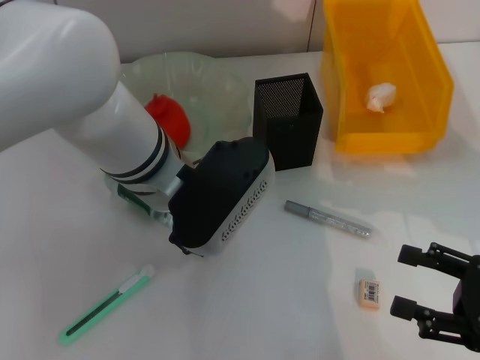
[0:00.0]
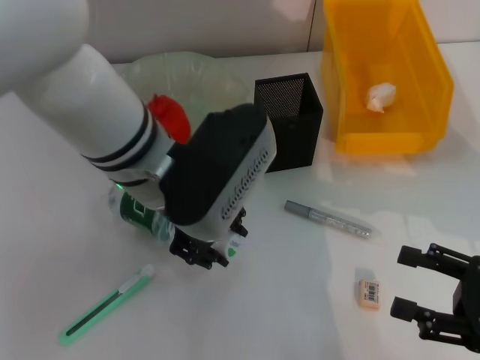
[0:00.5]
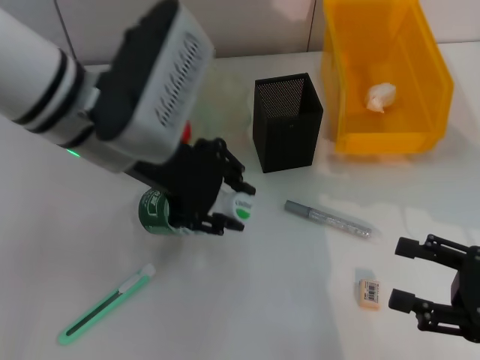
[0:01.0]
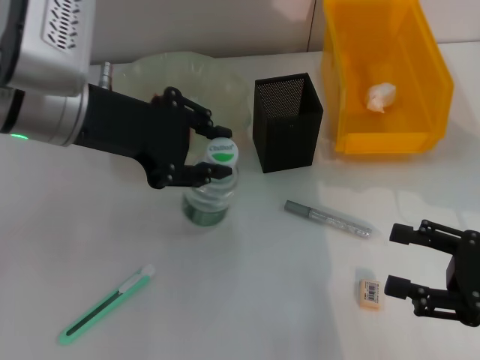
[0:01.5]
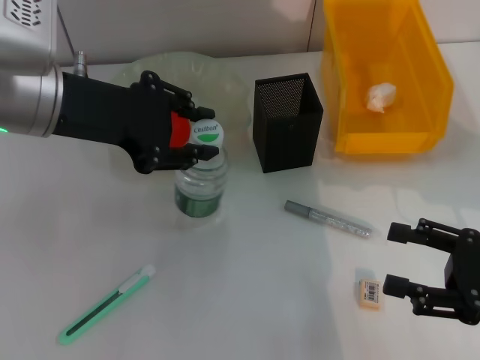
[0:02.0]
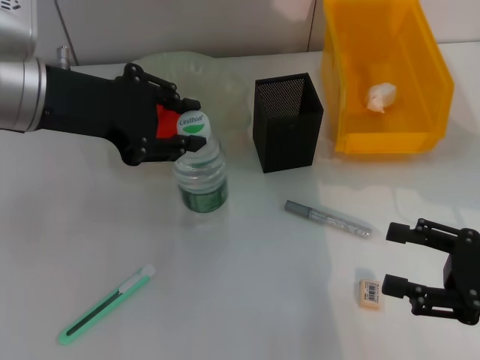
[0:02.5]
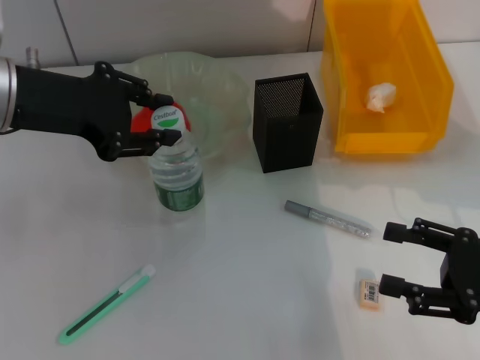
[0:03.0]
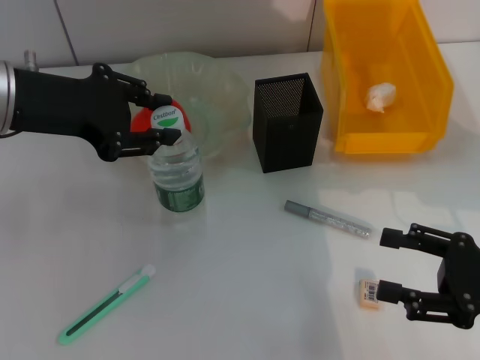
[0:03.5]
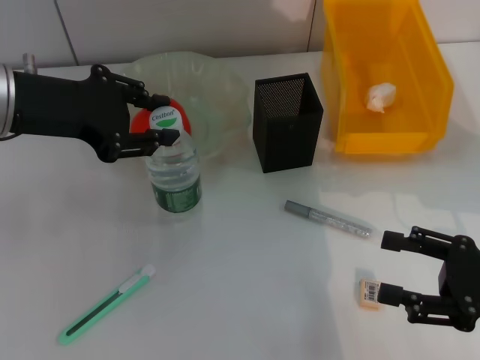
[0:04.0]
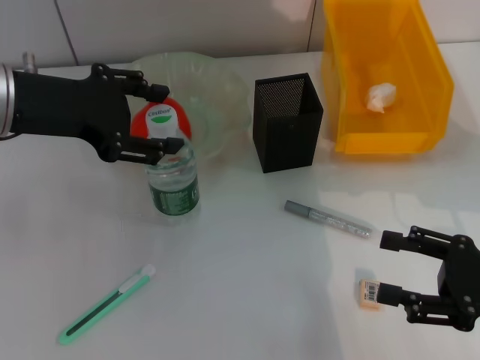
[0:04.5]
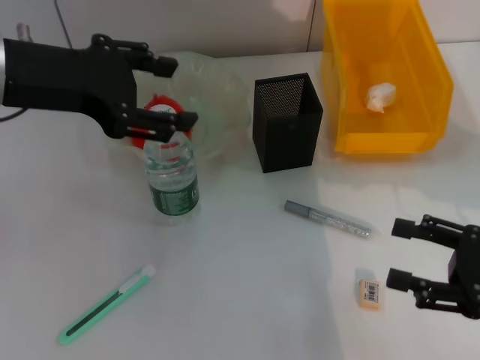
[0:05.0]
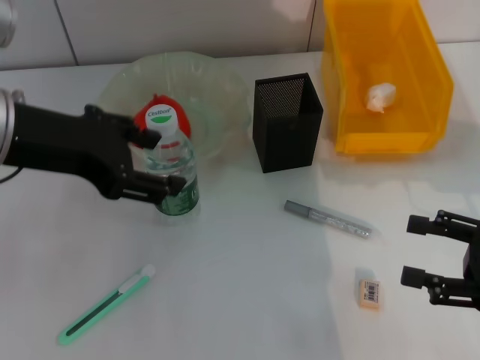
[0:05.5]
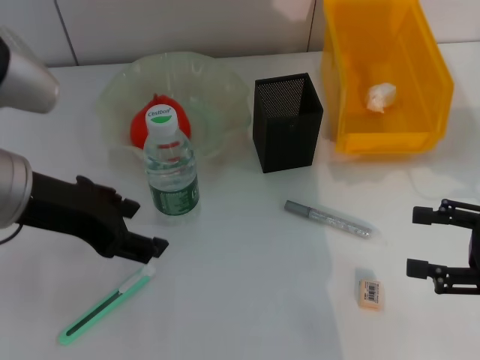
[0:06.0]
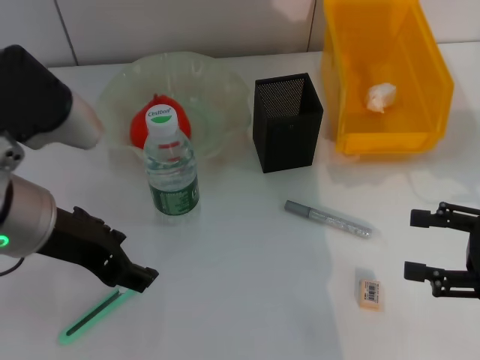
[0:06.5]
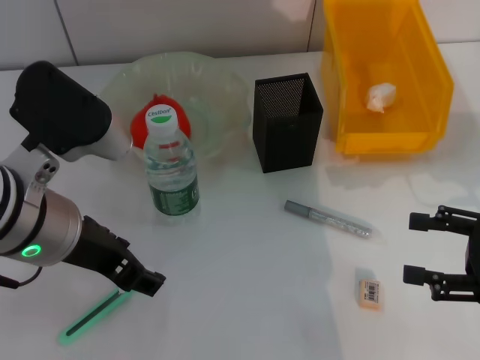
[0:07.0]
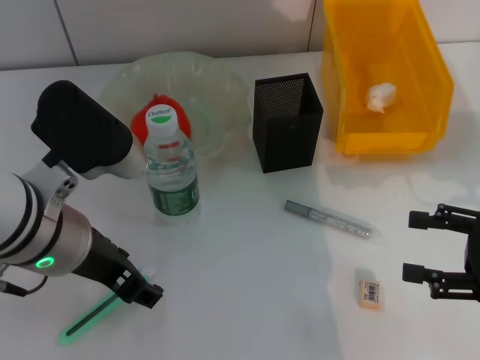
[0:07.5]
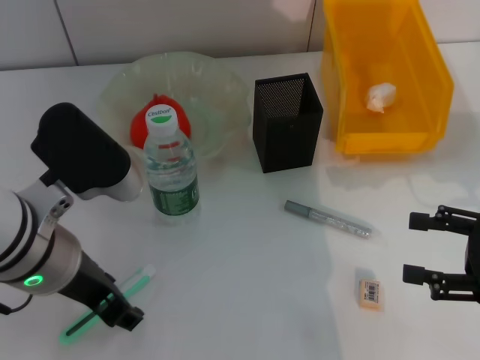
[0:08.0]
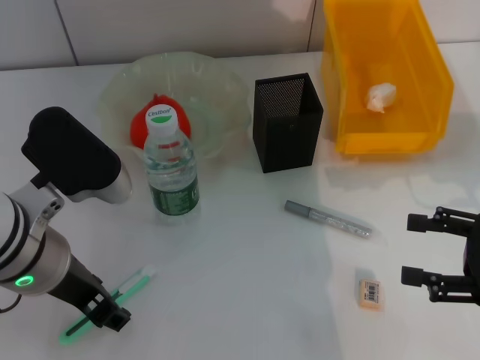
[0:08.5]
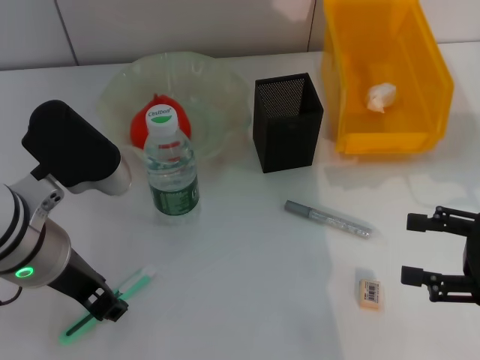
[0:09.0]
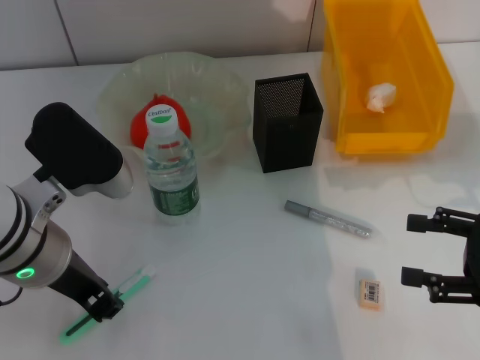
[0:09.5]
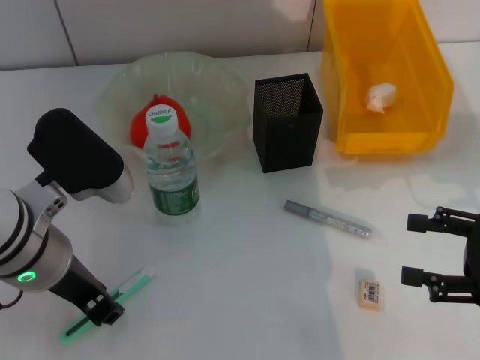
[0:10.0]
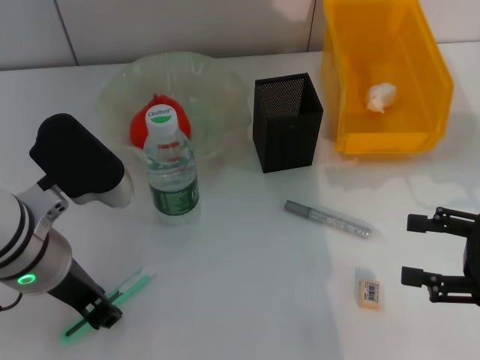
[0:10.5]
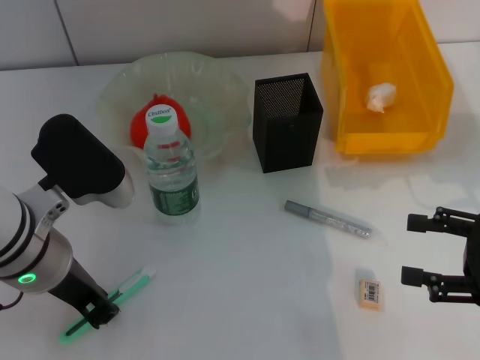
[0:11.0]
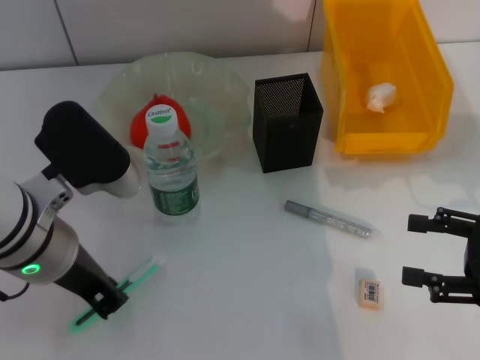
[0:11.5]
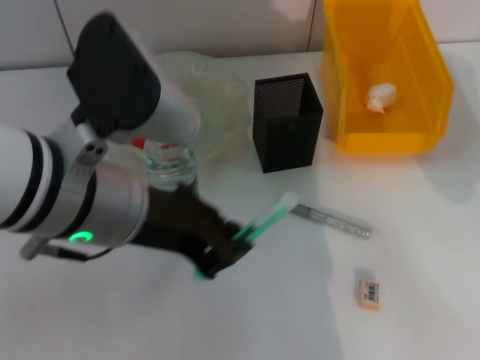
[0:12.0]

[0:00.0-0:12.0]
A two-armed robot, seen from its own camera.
Step, 0:00.0 to 0:04.0: Place the water bottle on the table with the left hand.
Step, 0:05.0 to 0:11.0: Grab the blue utility knife with the left hand.
0:00.0 to 0:02.0: The left gripper is displaced to the left and upward by some 15 cm.
0:02.0 to 0:04.0: The grippers stay close to where they were, moving slightly.
0:04.0 to 0:06.0: The left gripper moves backward, some 5 cm, and opens.
0:06.0 to 0:08.0: The left gripper ends up some 5 cm from where it was.
0:08.0 to 0:10.0: The left gripper closes.
0:10.0 to 0:12.0: The right gripper changes place by approximately 5 cm, while the left gripper travels upward and to the right by approximately 10 cm.

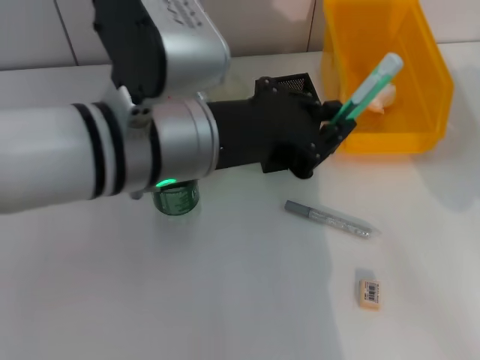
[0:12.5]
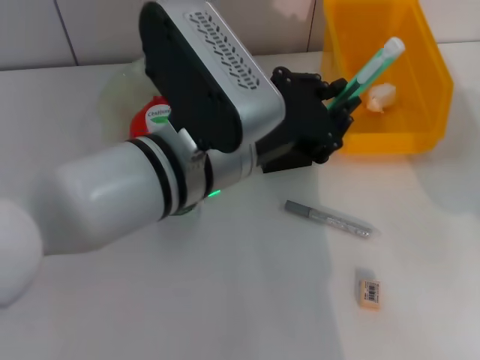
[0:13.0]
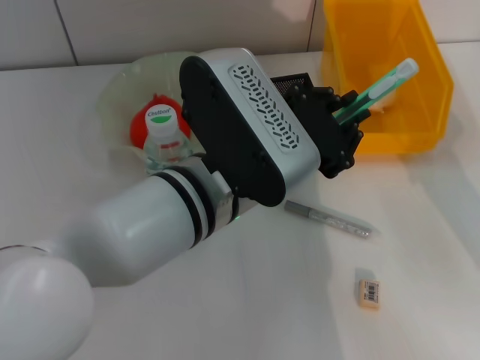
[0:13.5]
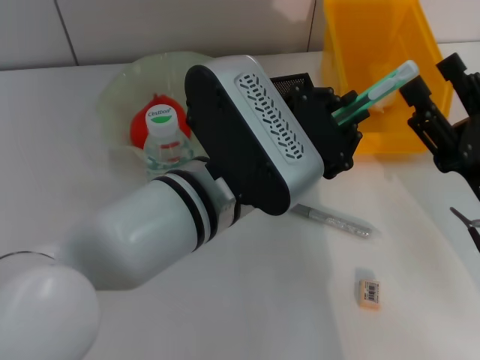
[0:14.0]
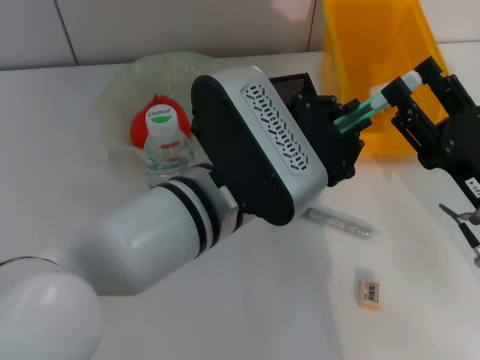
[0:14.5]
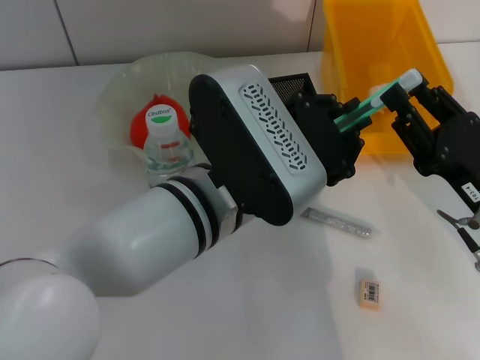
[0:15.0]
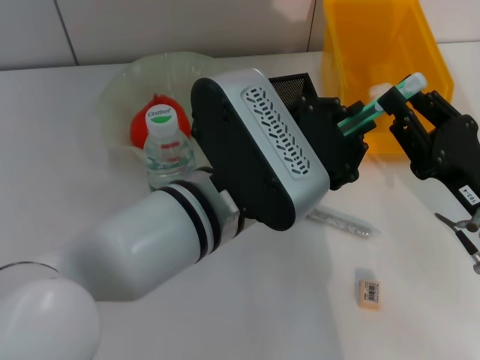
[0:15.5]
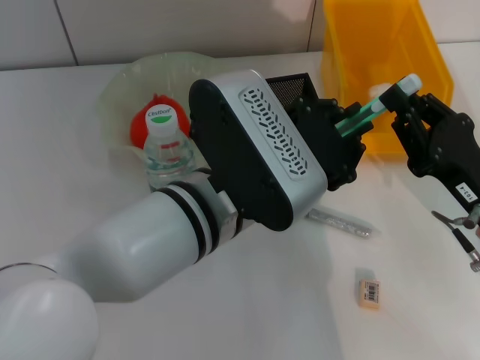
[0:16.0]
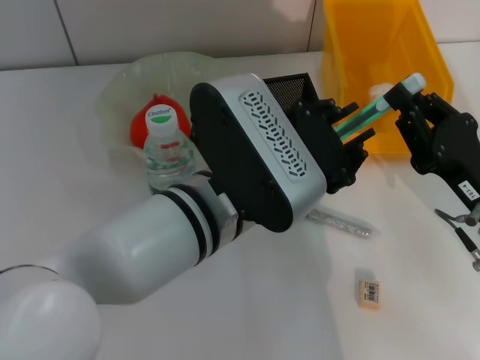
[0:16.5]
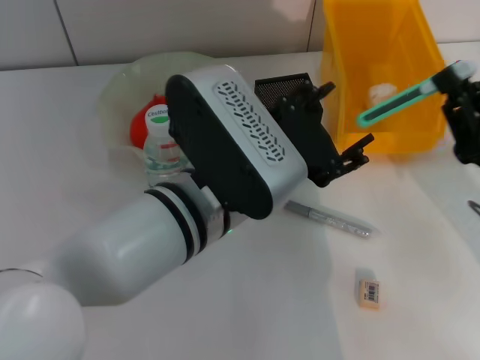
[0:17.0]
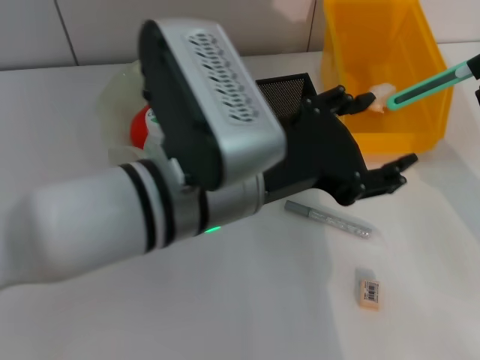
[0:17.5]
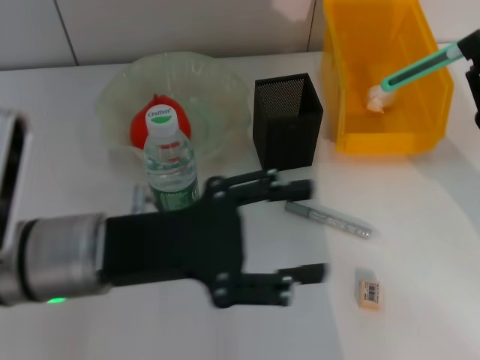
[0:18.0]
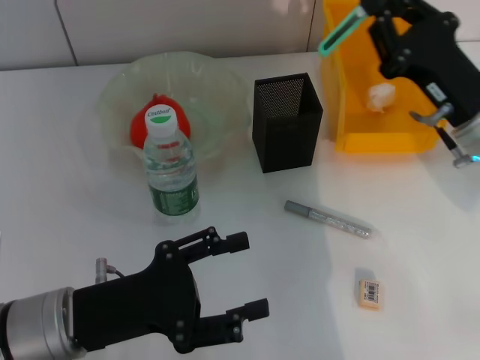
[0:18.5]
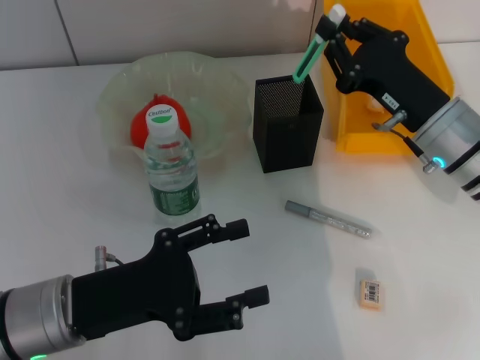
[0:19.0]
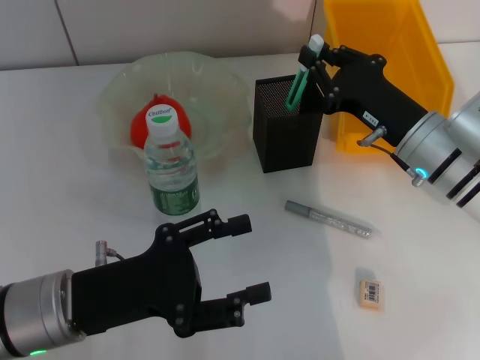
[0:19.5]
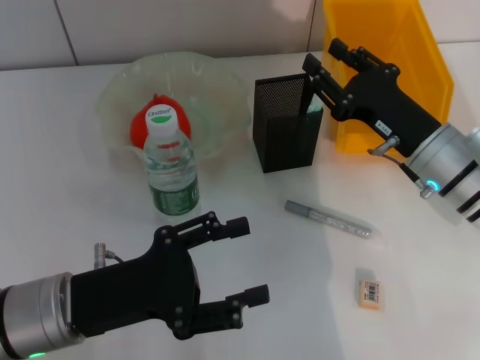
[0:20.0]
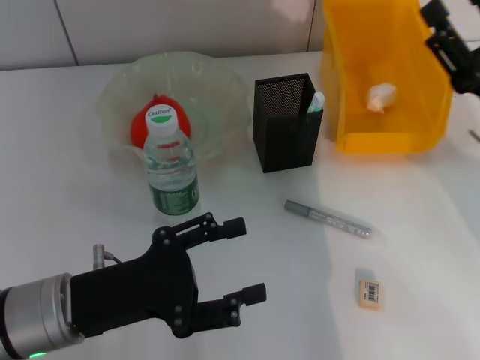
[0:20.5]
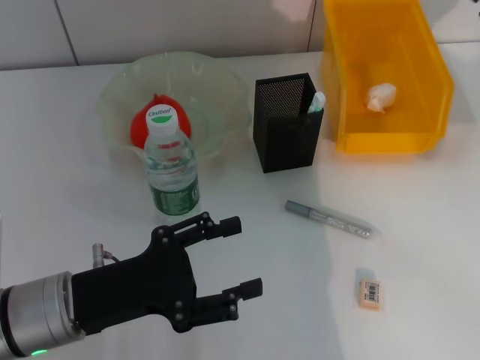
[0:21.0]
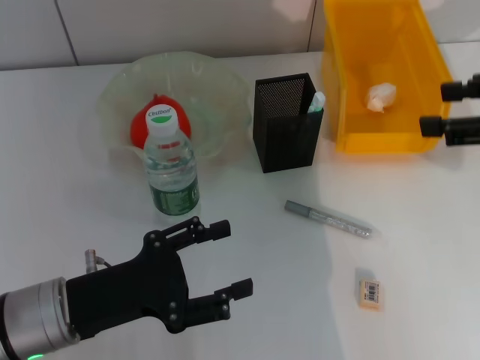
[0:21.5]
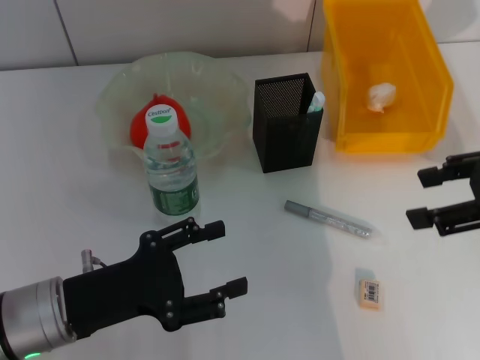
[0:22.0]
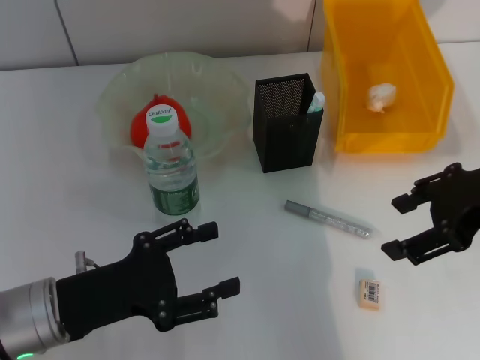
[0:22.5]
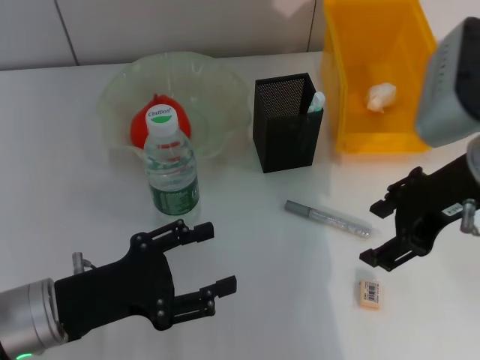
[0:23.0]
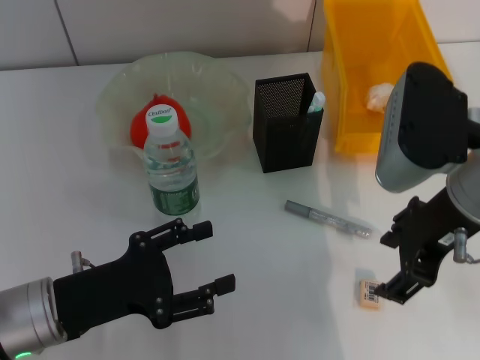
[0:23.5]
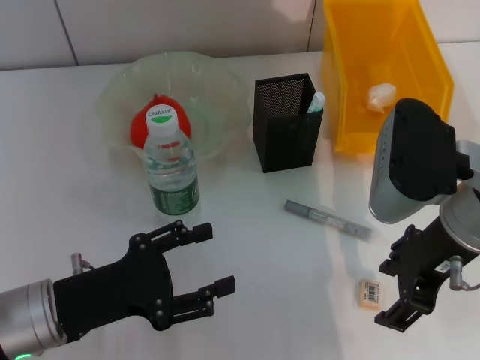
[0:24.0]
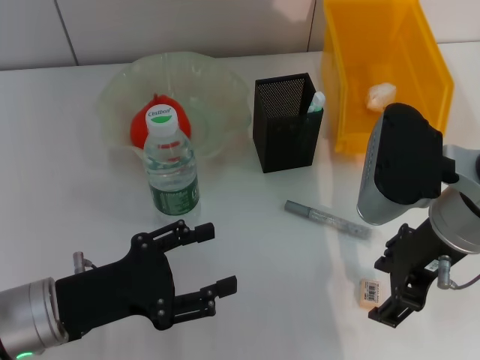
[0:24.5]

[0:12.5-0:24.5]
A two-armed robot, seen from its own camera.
Step, 0:12.5 to 0:16.0: Pass the blue utility knife from the left hand to the right hand.
Step, 0:16.5 to 0:19.5: Place the blue utility knife into the pen holder with the right hand.
0:12.5 to 0:14.5: The left gripper goes roughly 10 cm downward and to the right; the right gripper is displaced to the left and forward by some 15 cm.
0:14.5 to 0:16.5: The right gripper closes.
0:16.5 to 0:18.5: The left gripper heads to the left and downward, covering some 20 cm, and opens its fingers; the right gripper heads forward, covering about 10 cm.
0:18.5 to 0:20.5: The right gripper ends up about 5 cm from where it was, and opens up.
0:20.5 to 0:22.5: The right gripper moves upward, approximately 10 cm.
0:22.5 to 0:24.5: The right gripper moves to the left, approximately 10 cm.

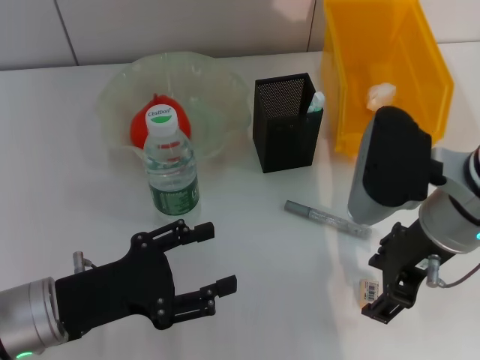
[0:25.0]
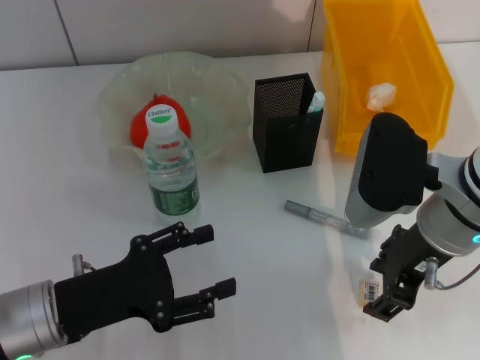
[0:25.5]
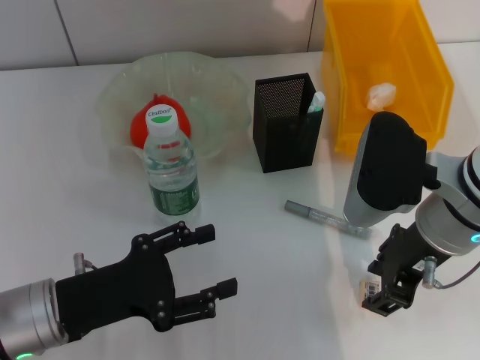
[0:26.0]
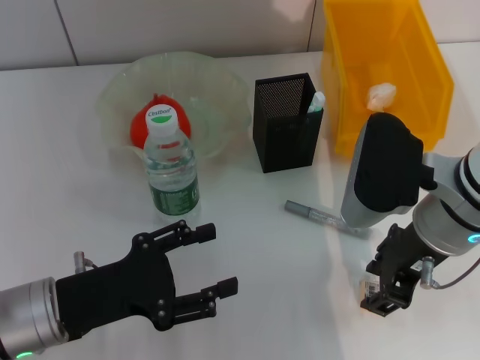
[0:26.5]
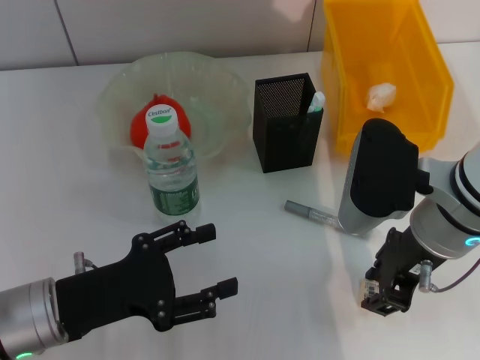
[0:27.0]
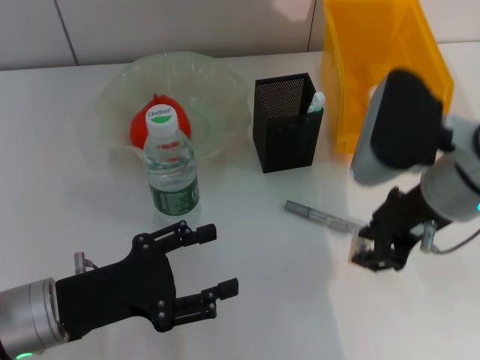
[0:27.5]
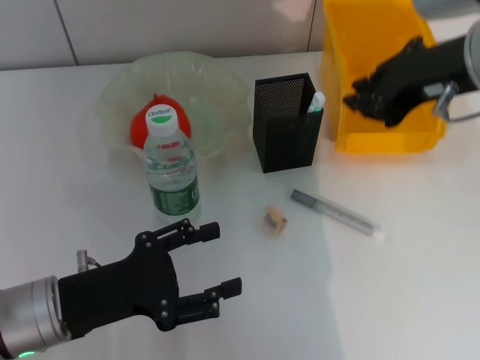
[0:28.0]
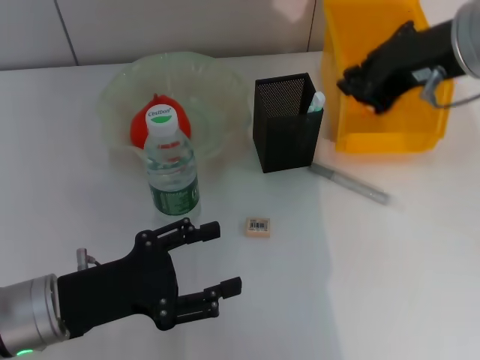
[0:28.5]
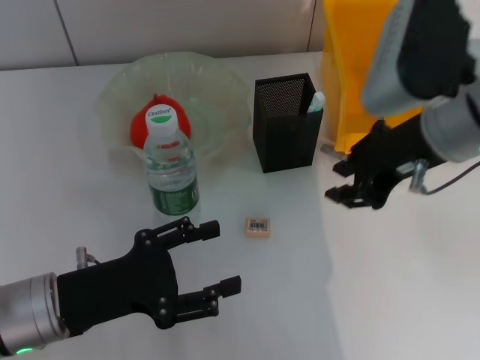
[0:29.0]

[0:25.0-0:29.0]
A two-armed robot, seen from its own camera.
0:25.0 to 0:27.0: The right gripper closes.
0:27.0 to 0:29.0: The right gripper goes roughly 5 cm upward.
